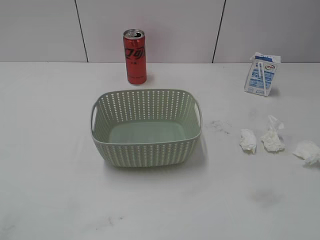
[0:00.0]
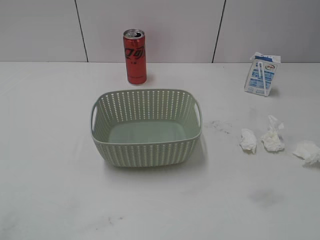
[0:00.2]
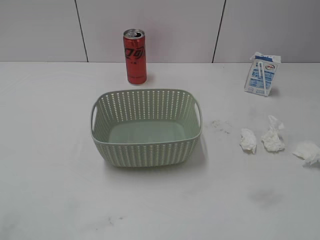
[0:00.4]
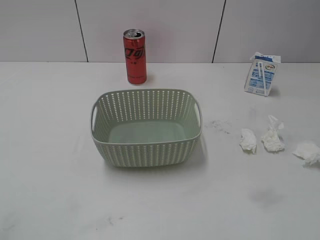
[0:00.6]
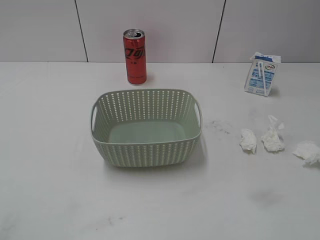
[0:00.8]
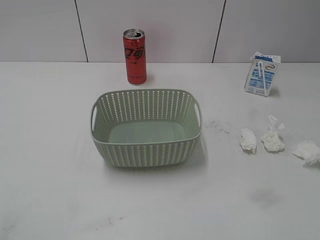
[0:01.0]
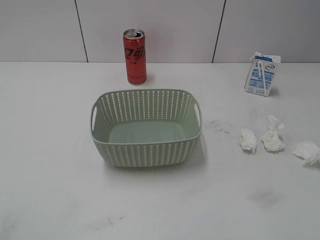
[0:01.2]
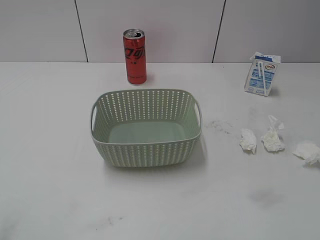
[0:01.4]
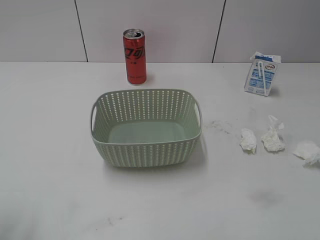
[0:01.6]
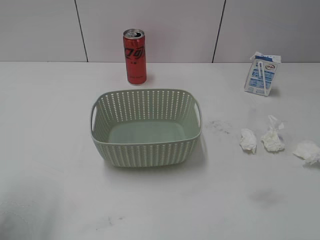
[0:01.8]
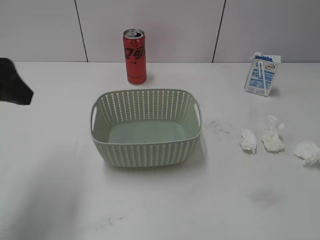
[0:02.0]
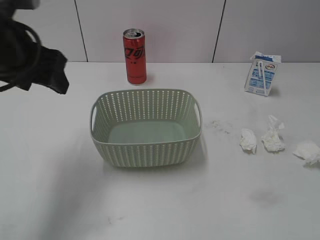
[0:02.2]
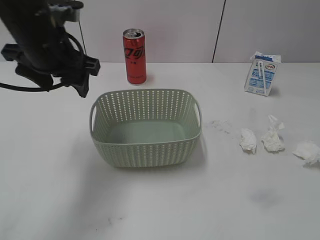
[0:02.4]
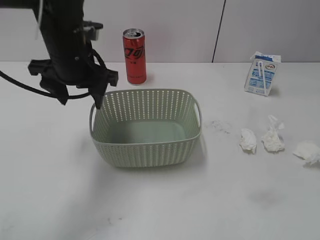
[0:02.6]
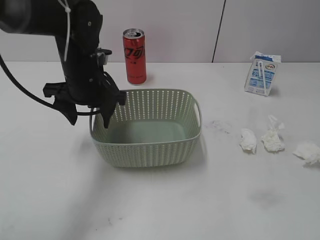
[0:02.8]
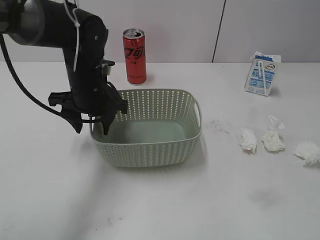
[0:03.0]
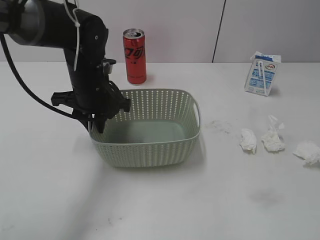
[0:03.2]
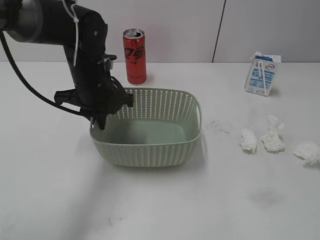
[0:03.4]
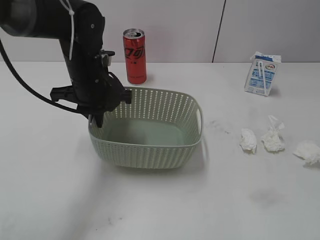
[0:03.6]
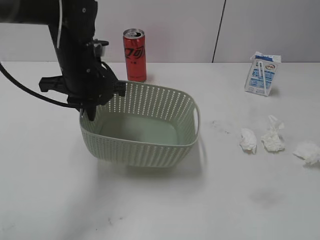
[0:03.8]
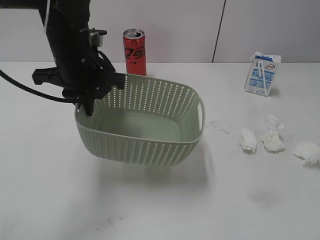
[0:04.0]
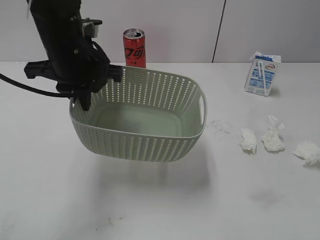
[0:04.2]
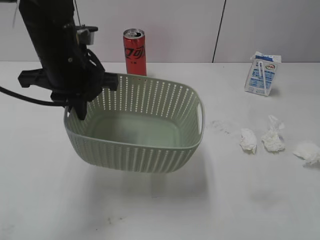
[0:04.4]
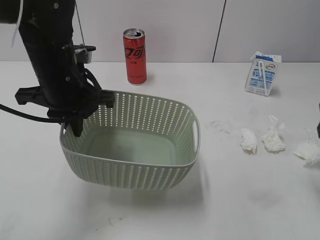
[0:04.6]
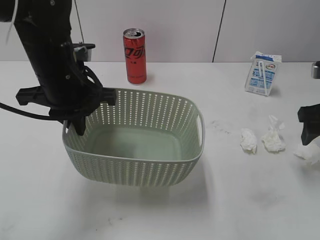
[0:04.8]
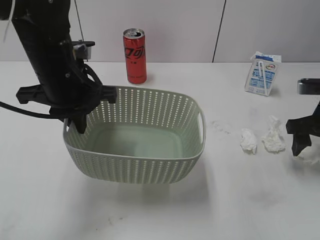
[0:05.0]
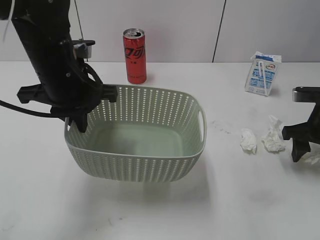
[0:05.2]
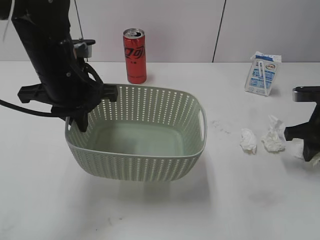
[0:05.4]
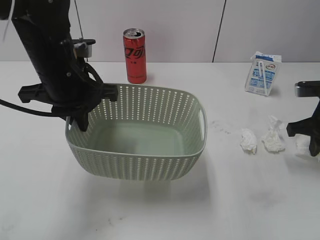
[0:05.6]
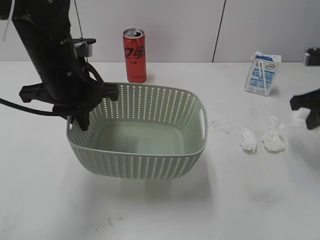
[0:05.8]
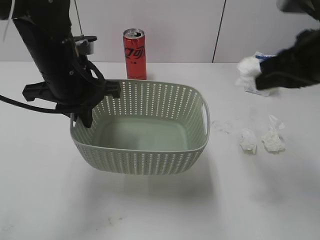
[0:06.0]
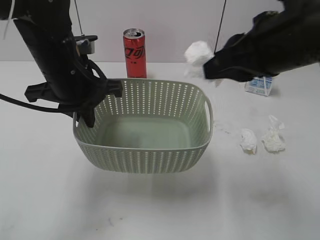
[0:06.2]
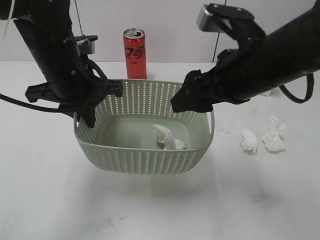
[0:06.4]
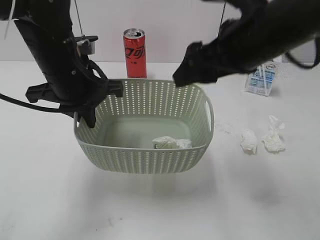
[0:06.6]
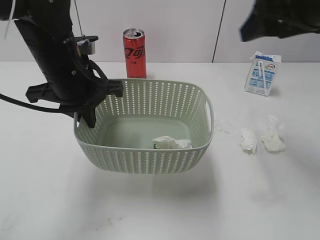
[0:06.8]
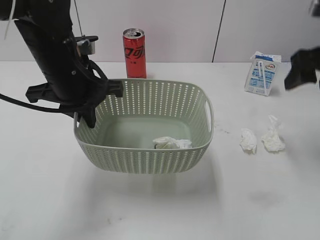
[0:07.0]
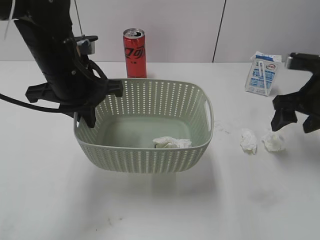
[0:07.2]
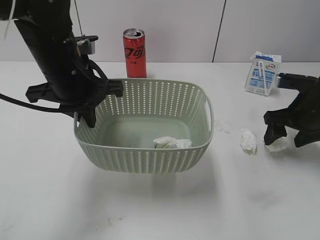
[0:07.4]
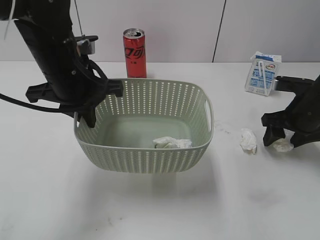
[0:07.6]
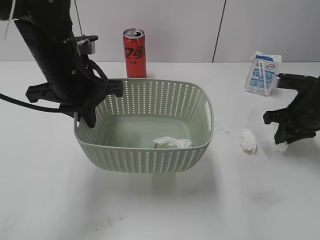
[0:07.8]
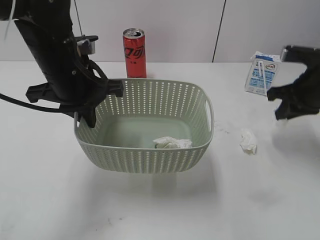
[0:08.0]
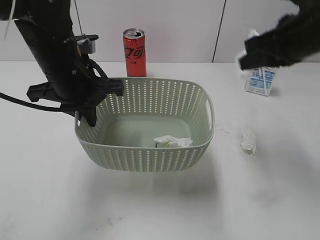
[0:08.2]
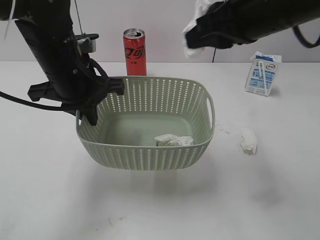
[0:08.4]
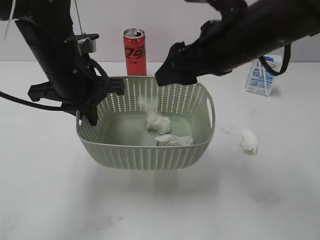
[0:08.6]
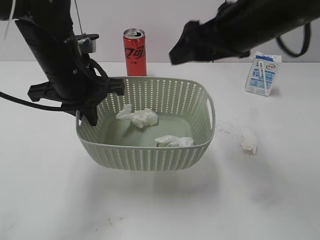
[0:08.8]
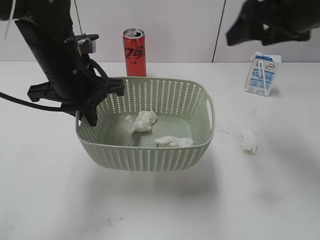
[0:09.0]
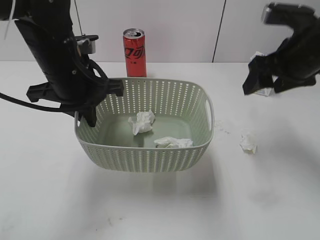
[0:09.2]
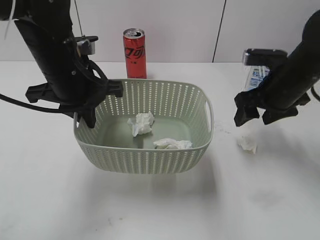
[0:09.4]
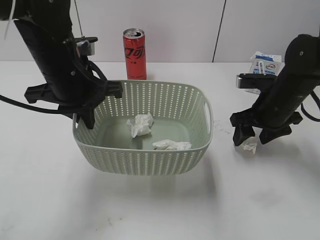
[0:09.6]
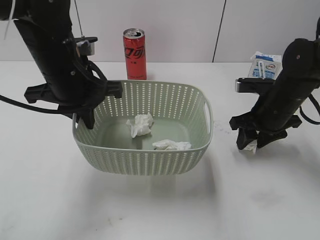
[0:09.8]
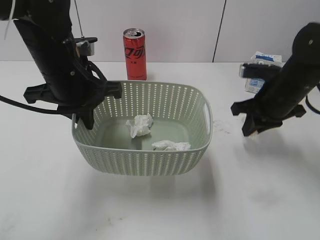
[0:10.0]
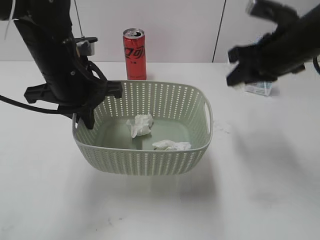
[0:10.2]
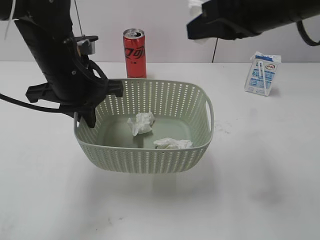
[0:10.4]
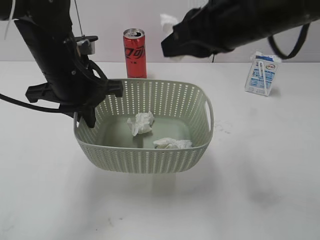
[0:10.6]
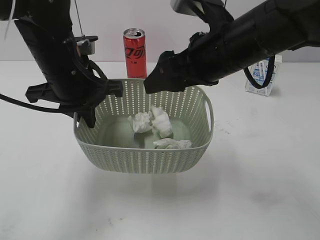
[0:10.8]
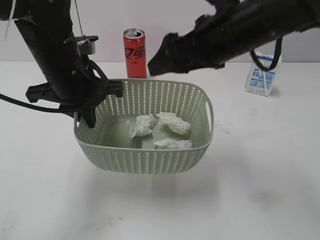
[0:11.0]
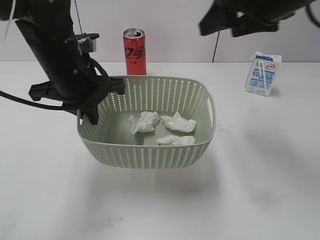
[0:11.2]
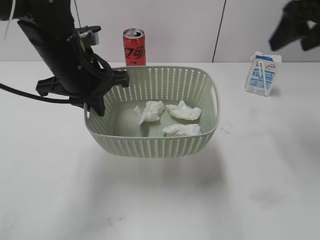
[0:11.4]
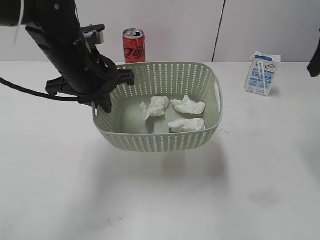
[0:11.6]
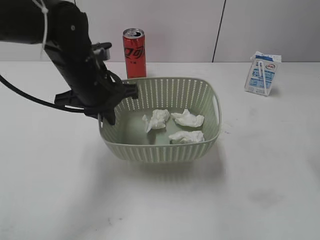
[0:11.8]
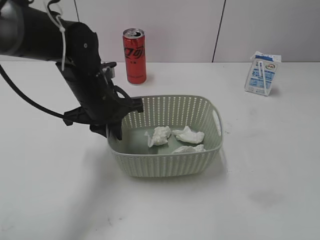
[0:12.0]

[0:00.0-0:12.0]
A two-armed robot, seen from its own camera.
Step, 2.0 to 3.4 s: Grasp the basket with left gripper.
Step, 3.6 to 4.2 s: Lift the basket with left gripper.
Step, 4.4 to 5.8 s: Grasp the waste paper with right gripper.
Step, 6.0 to 6.4 s: Place the waste paper in the basket with right gripper.
Step, 6.6 to 8.0 s: Grasp the waste paper with right gripper.
Step, 8.2 to 8.6 s: Place the waste paper in the basket with right gripper.
Step, 8.8 to 10.0 s: Grasp the waste paper with right gripper.
Step, 10.2 to 11.0 s: Place the waste paper in the basket with right gripper.
1.6 to 3.0 s: The left gripper moves forward, to the right and downward, about 35 cm.
3.0 to 4.4 s: The left gripper goes approximately 10 cm upward, and closes up, while the right gripper moves forward, some 15 cm.
4.4 to 6.0 s: The right gripper is displaced forward and to the left by approximately 15 cm, and closes its fingers.
6.0 to 7.6 s: The right gripper heads downward and forward, covering about 15 cm, and opens its fingers.
7.6 to 9.0 s: The right gripper heads upward and to the left, covering approximately 20 cm, and closes, then opens again.
9.0 to 10.4 s: The right gripper reaches about 20 cm downward, then returns, and closes.
10.4 to 12.0 s: The right gripper goes roughly 15 cm to the right, and opens. Meanwhile the left gripper is displaced downward by some 5 cm.

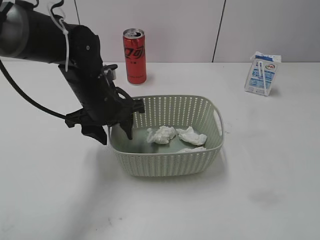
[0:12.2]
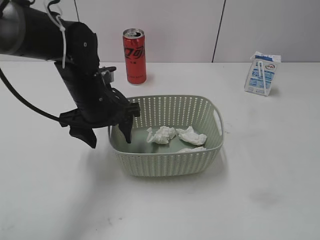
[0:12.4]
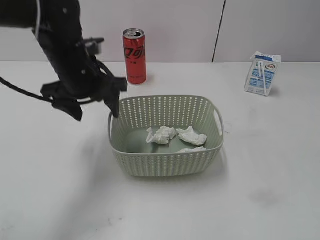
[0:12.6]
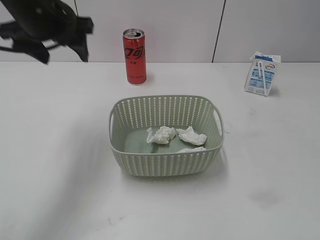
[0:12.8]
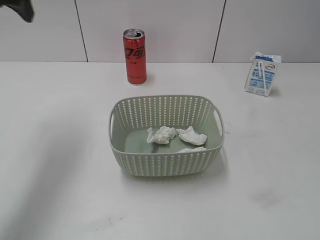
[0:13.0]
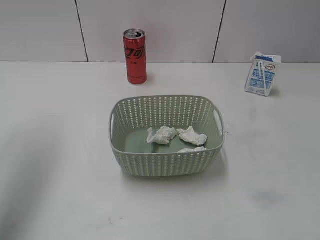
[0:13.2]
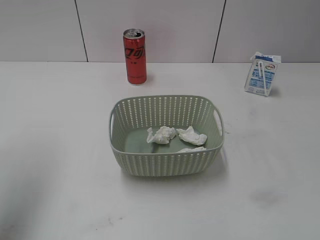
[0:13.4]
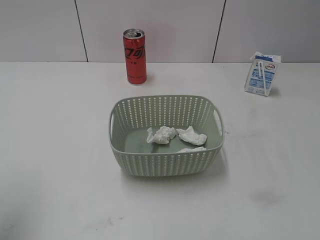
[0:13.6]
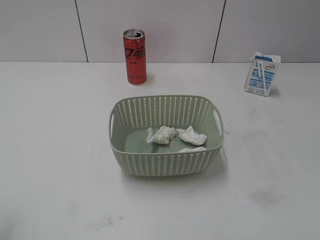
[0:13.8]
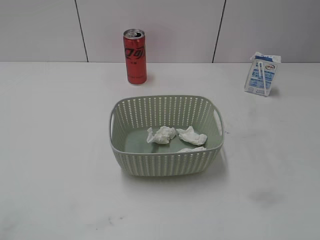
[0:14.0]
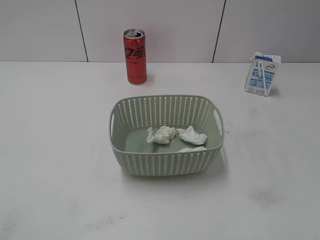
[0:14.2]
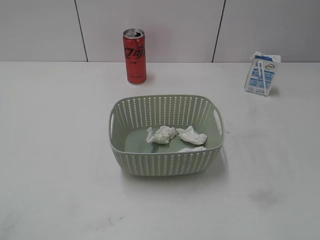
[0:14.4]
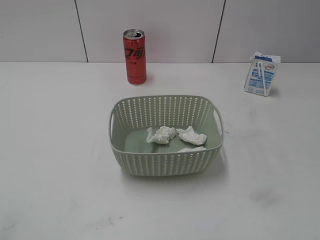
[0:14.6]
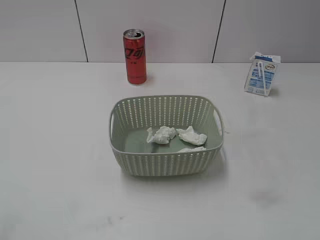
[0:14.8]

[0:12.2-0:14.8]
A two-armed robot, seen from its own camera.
12.2 to 13.4 s: The left gripper heads upward and to the left, covering roughly 30 cm, while the right gripper is displaced backward by approximately 15 cm.
13.4 to 14.8 s: The left gripper goes some 30 cm backward and downward.

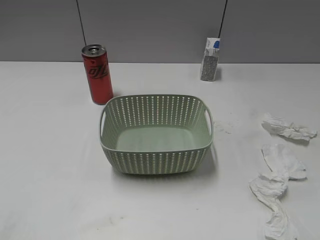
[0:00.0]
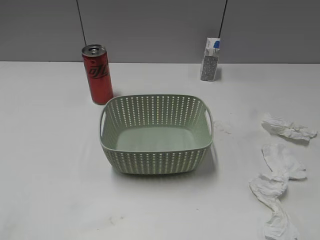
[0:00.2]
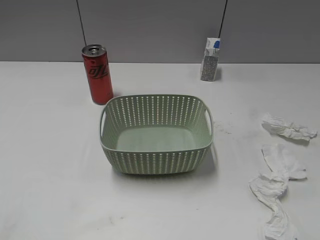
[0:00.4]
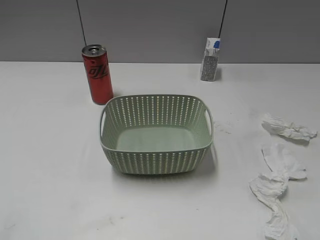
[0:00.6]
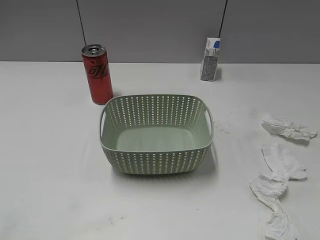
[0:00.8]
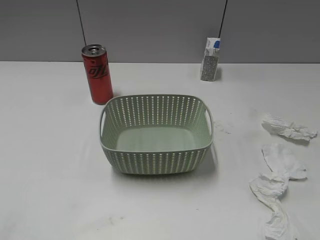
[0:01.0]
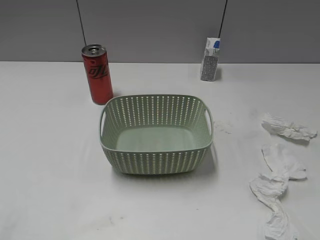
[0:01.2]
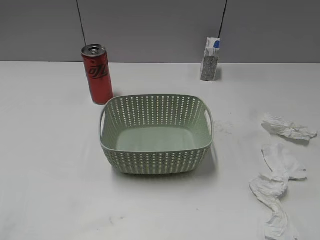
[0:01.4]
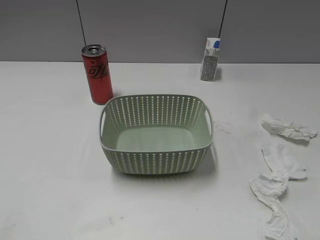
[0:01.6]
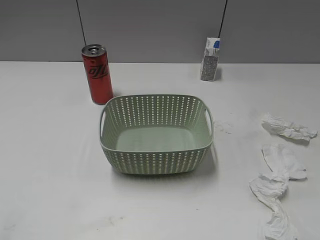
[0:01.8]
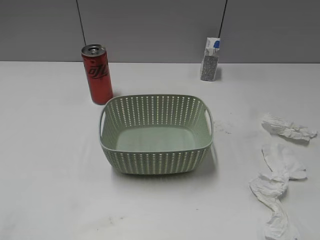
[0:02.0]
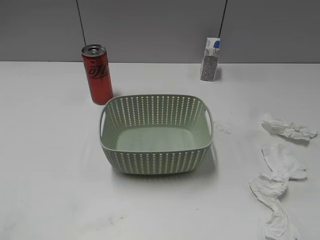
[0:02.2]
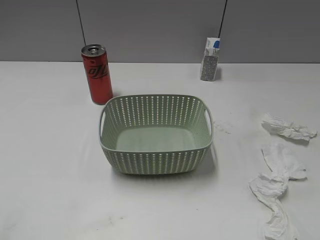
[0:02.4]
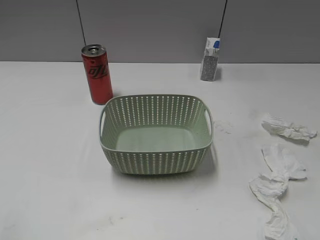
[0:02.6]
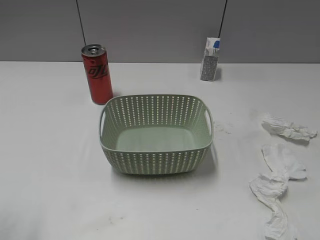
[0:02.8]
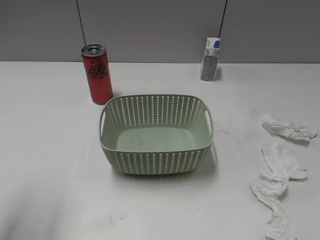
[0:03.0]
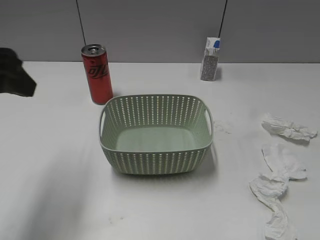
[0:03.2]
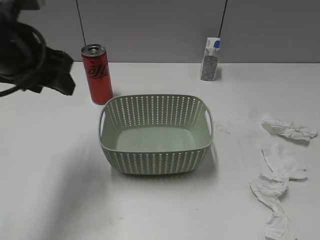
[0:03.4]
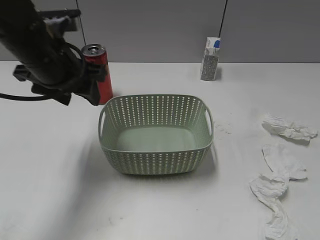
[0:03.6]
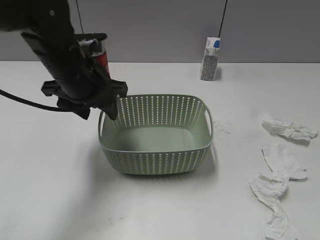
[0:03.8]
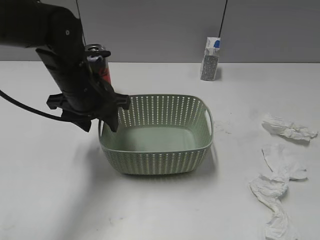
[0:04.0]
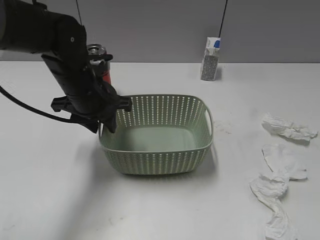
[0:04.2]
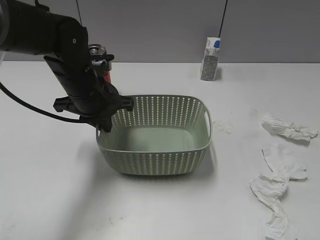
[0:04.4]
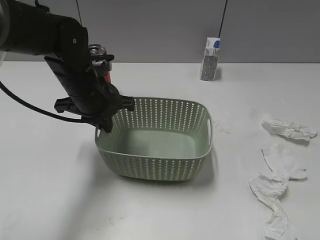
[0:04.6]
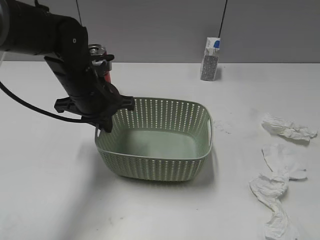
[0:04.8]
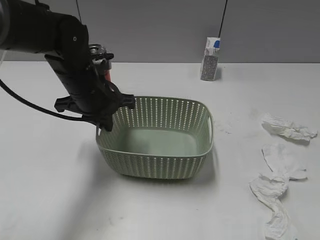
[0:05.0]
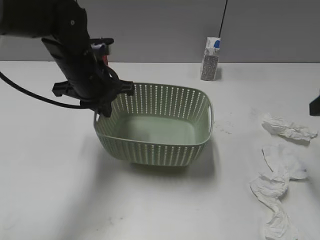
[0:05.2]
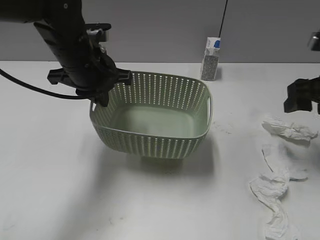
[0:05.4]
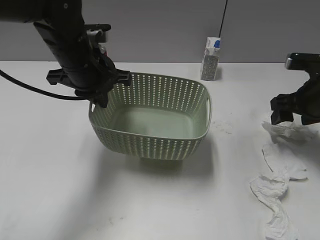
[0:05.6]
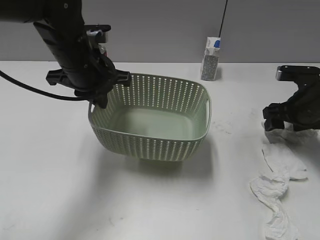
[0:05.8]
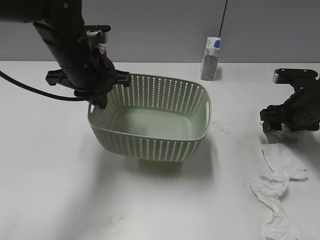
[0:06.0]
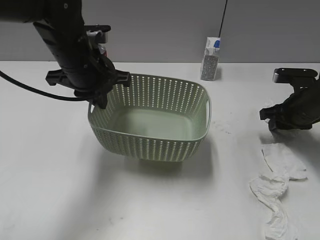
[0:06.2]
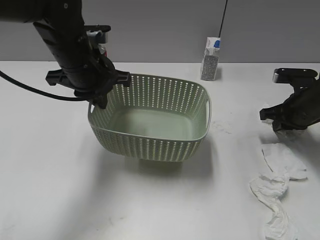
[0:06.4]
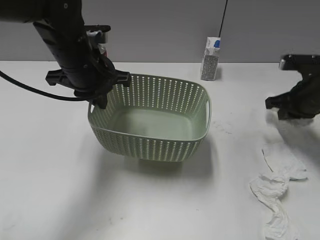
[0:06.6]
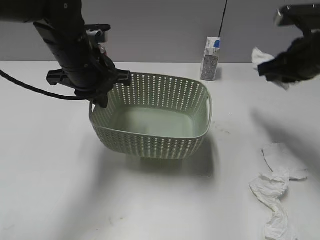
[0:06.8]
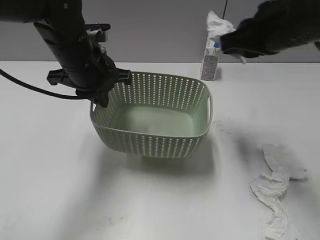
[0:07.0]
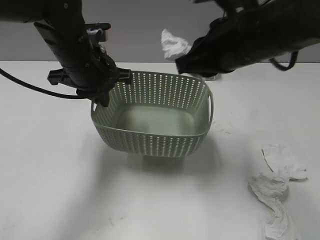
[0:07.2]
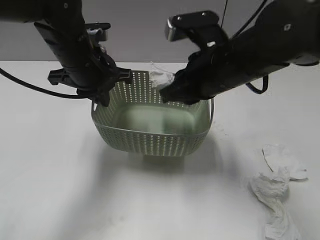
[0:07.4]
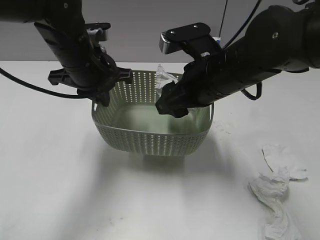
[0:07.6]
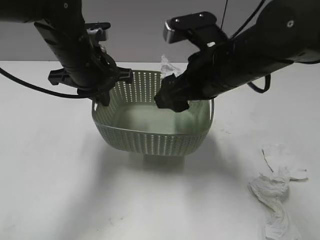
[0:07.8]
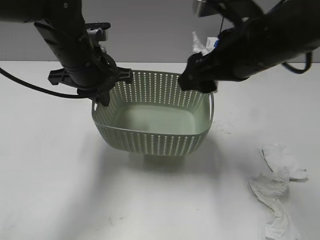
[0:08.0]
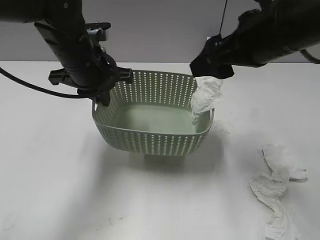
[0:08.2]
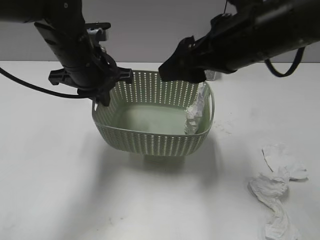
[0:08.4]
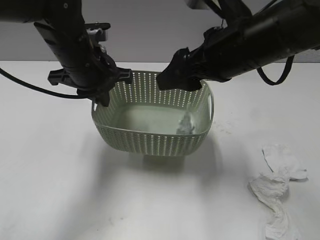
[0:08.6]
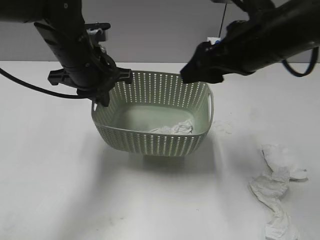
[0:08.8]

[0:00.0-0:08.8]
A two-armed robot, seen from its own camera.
Step, 2.0 to 4.4 s: Grasp the basket with left gripper.
Step, 5.6 to 6.4 s: Grasp the waste paper with right gripper.
Step, 6.6 to 8.8 s: Place the waste paper in the basket with right gripper.
1.4 to 3.0 s: The left gripper travels forward by some 15 cm.
3.0 to 4.4 s: The left gripper moves forward, downward and to the right, about 30 cm, and closes its fingers.
4.4 to 5.8 s: The right gripper travels forward and downward by about 35 cm.
5.8 to 7.4 s: The right gripper travels to the left and upward by about 20 cm, and closes up.
7.4 to 8.8 s: The right gripper changes place by approximately 5 cm, and opens.
